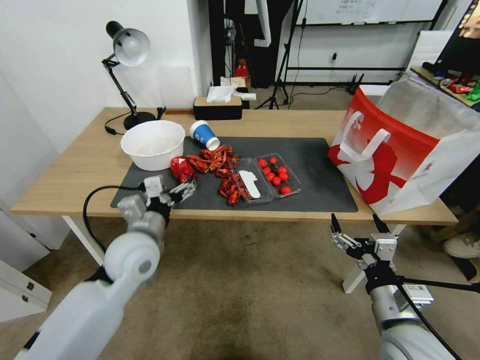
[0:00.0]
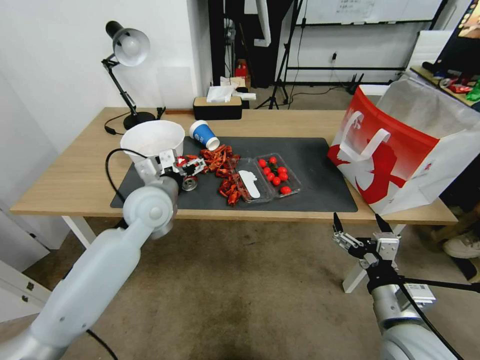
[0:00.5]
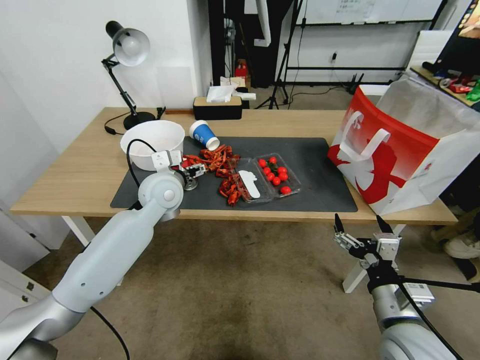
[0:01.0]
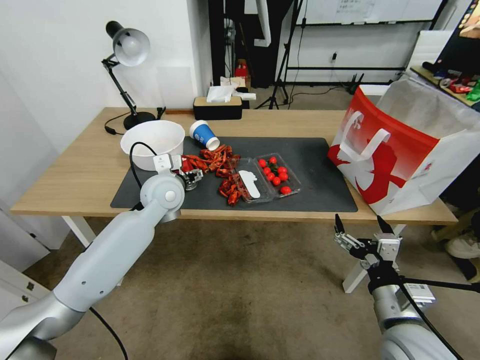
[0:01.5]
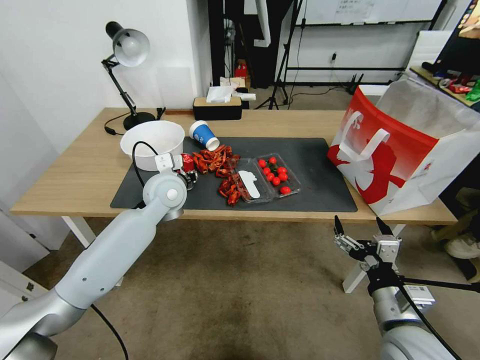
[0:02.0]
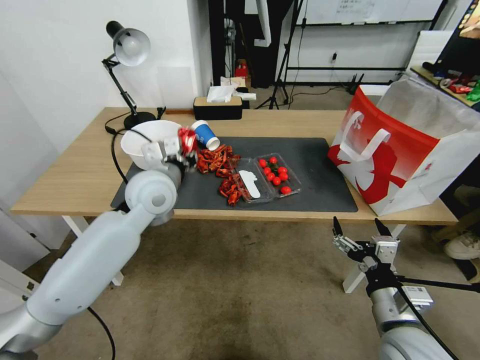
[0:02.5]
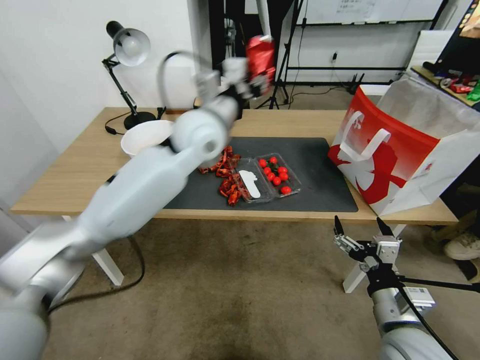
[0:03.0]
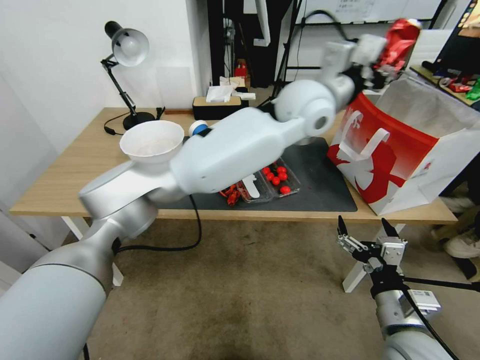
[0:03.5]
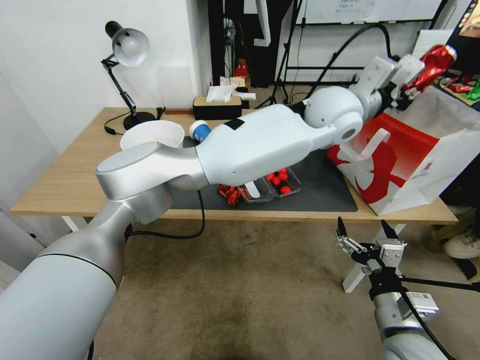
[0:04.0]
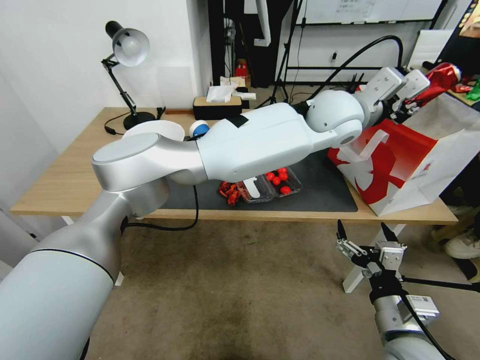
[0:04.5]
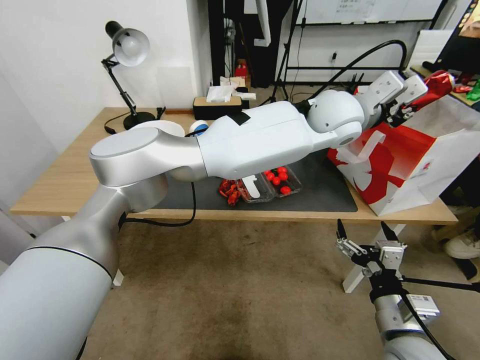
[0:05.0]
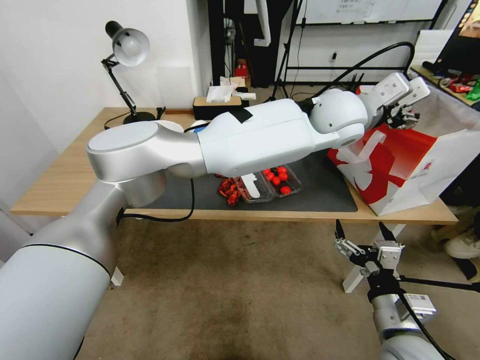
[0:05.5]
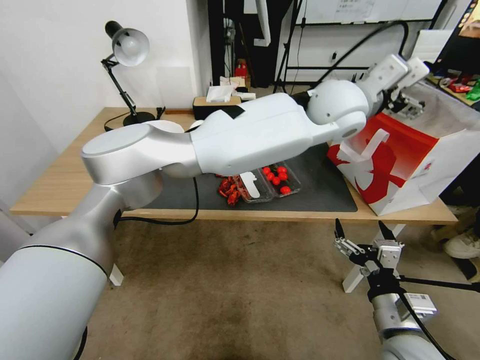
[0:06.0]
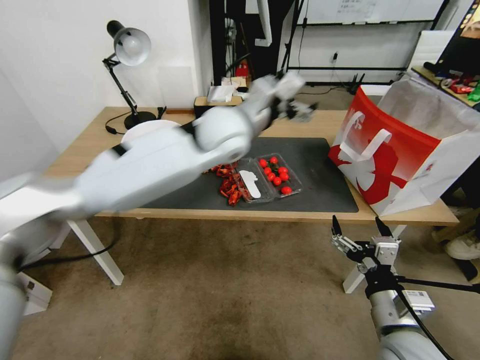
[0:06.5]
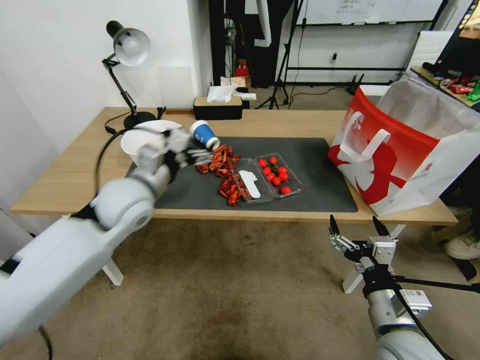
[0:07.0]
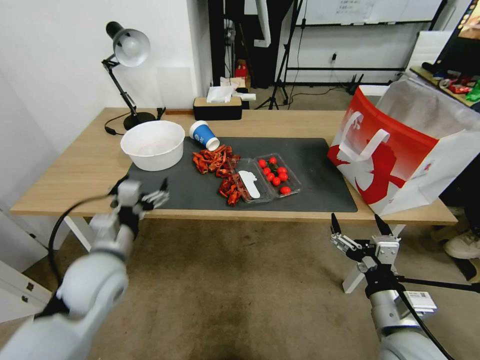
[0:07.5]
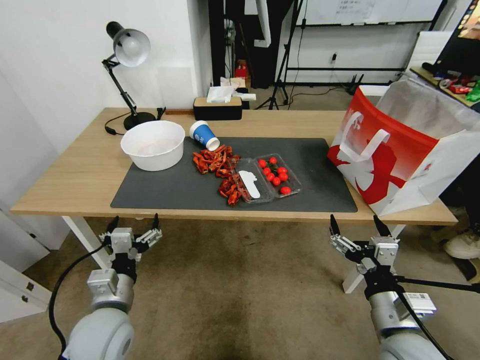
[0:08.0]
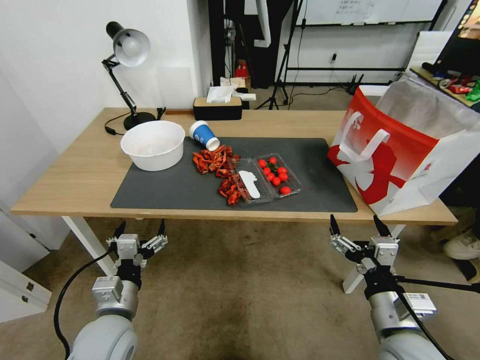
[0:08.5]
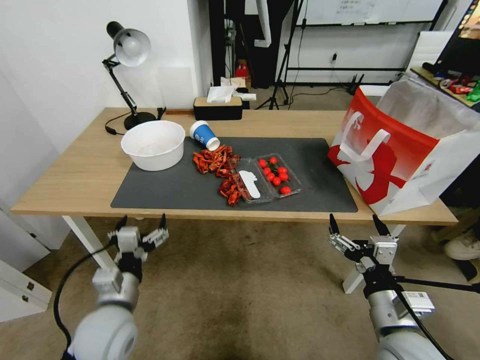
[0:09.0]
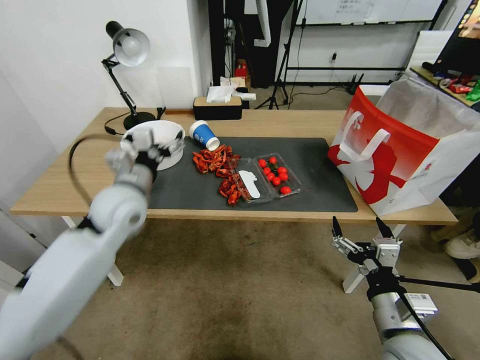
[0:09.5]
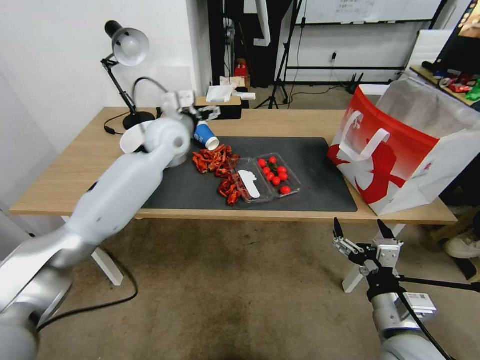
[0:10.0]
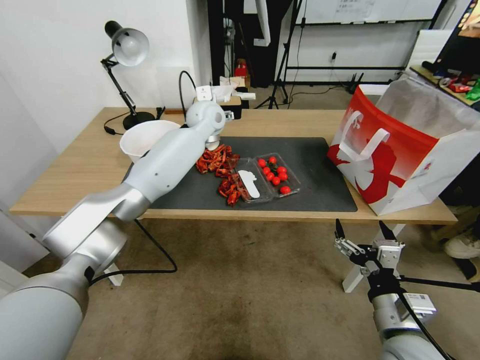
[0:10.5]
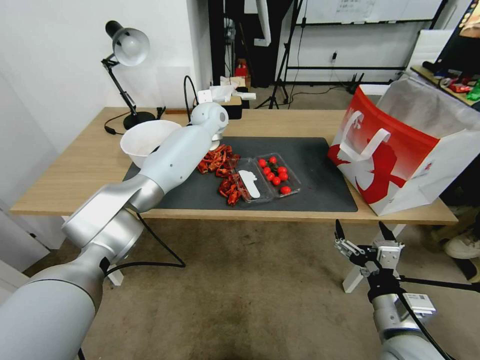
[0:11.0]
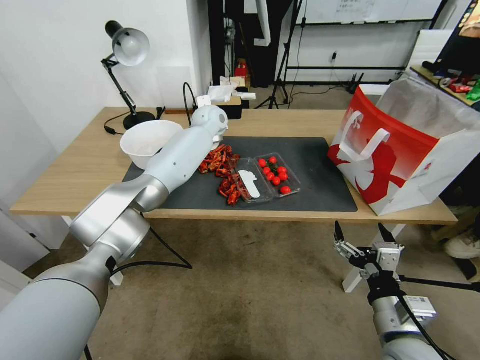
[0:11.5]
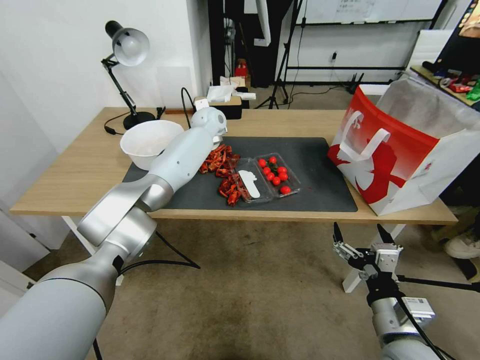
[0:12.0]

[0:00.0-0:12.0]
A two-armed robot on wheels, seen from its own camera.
0:00.0 to 0:02.0: The left gripper shifts approximately 15 cm forward, and closes up.
0:02.0 to 0:04.0: The left gripper is displaced to the right and upward by about 40 cm.
0:04.0 to 0:06.0: The left gripper opens its fingers.
0:06.0 to 0:08.0: The left gripper moves to the left, downward and backward, approximately 60 cm.
0:08.0 to 0:10.0: The left gripper shifts approximately 40 cm forward and upward.
0:10.0 to 0:12.0: The left gripper travels forward and to the right by about 15 cm.

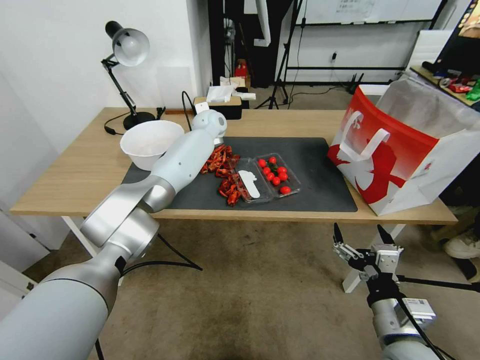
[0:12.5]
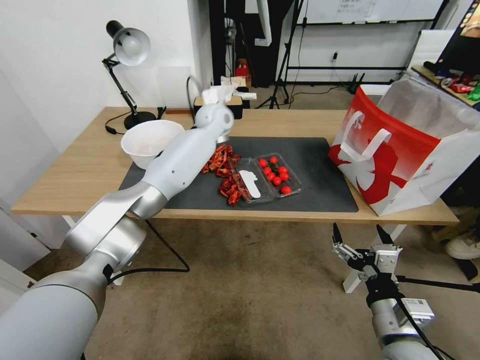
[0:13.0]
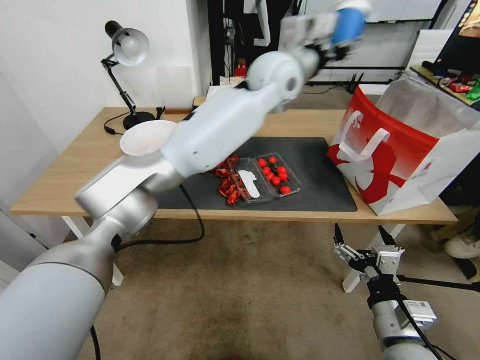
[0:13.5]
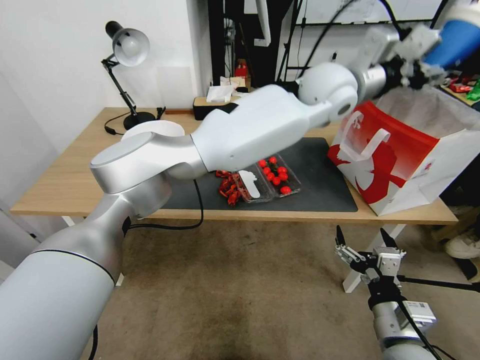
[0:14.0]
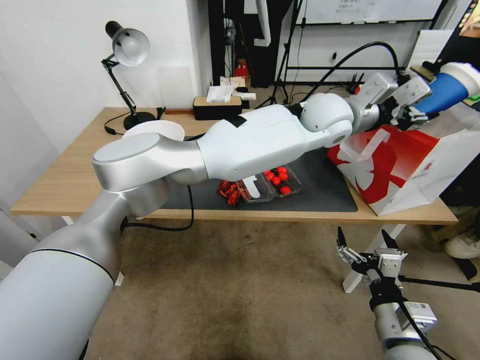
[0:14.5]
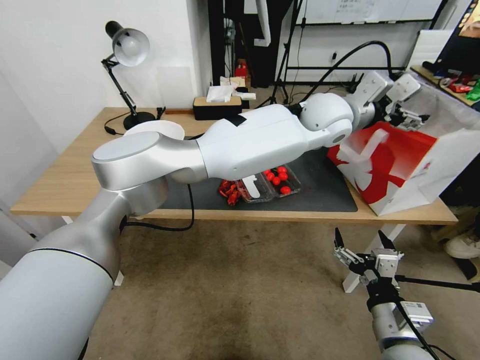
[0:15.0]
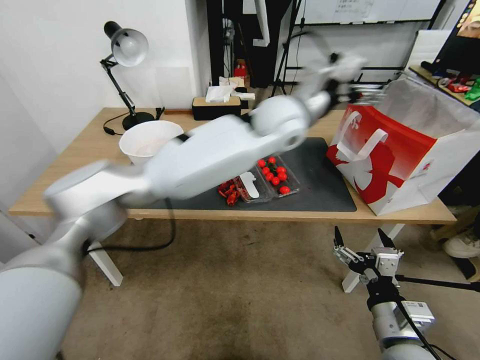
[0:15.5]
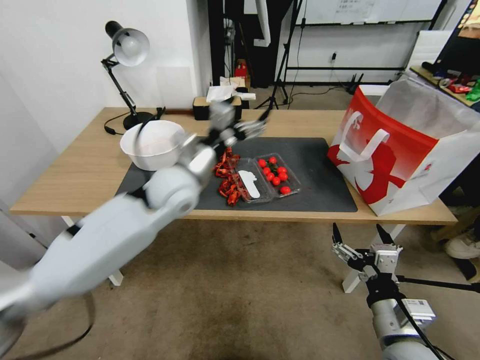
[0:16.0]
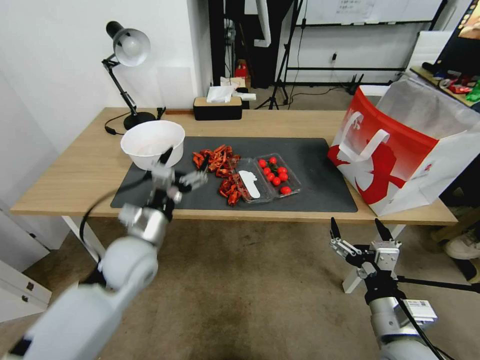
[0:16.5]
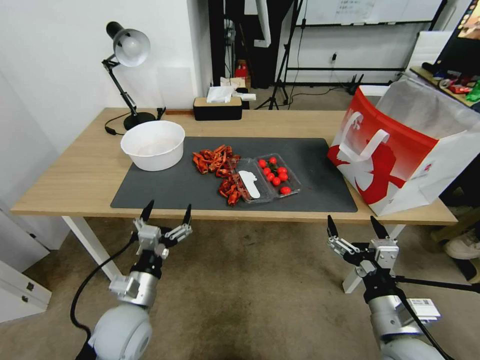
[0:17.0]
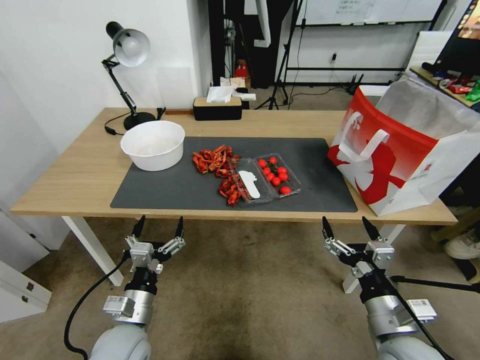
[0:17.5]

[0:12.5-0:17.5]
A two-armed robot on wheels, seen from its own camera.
0:12.5 to 0:15.0: The left gripper shifts approximately 35 cm to the right, backward and upward, and opens up.
0:15.0 to 0:17.5: The left gripper is displaced to the left, downward and backward by some 60 cm.

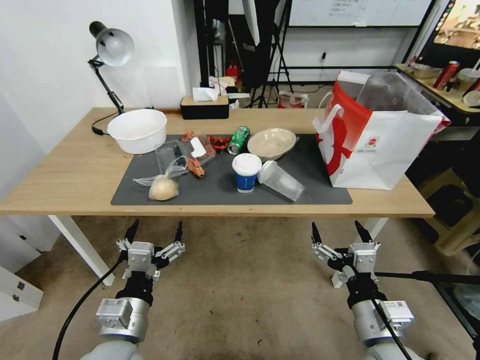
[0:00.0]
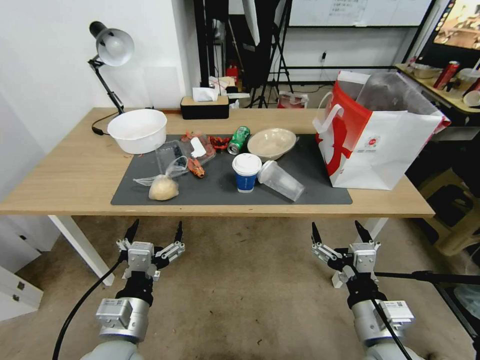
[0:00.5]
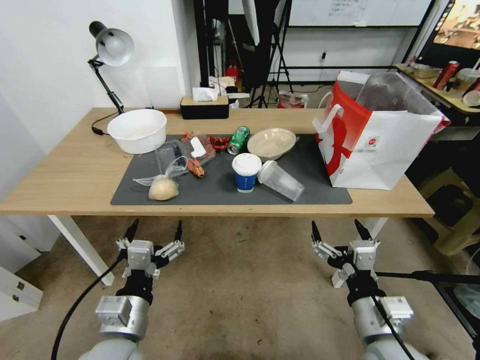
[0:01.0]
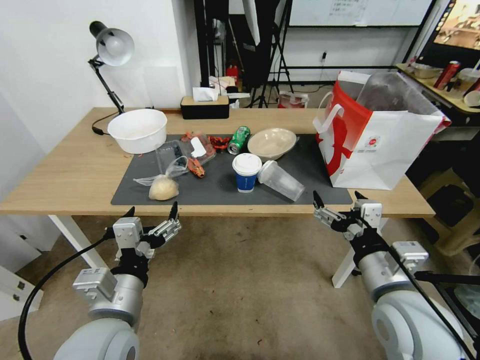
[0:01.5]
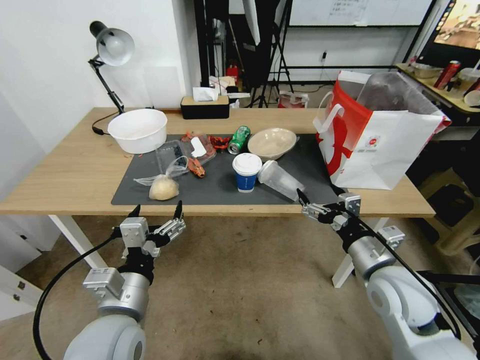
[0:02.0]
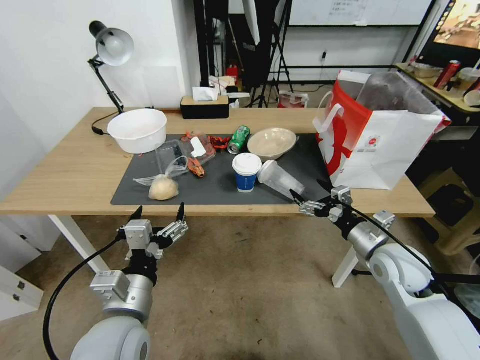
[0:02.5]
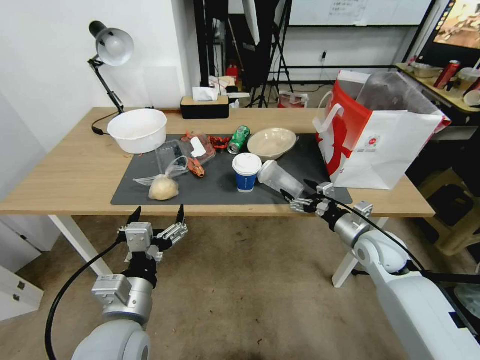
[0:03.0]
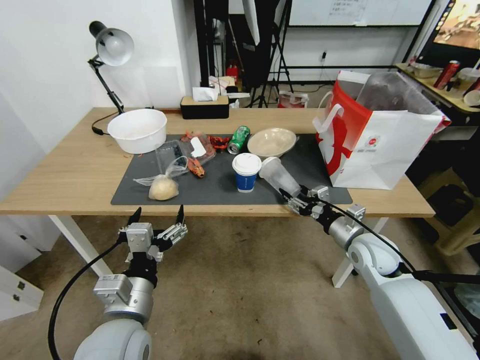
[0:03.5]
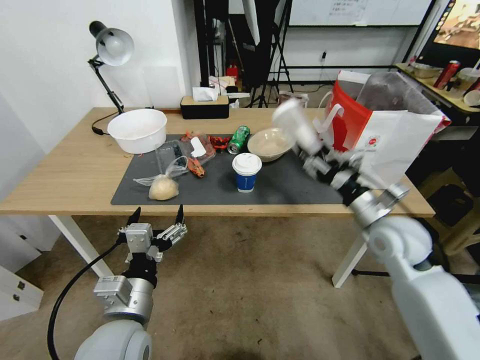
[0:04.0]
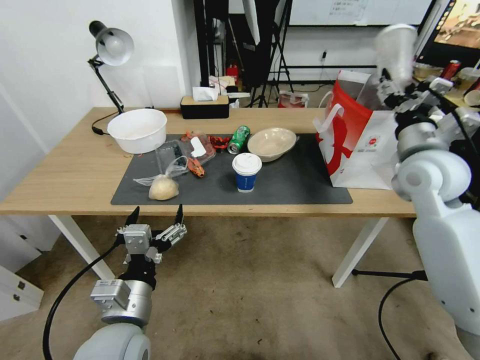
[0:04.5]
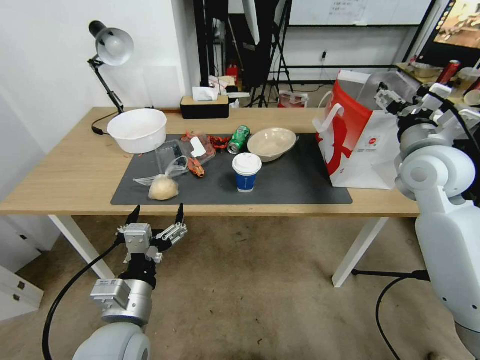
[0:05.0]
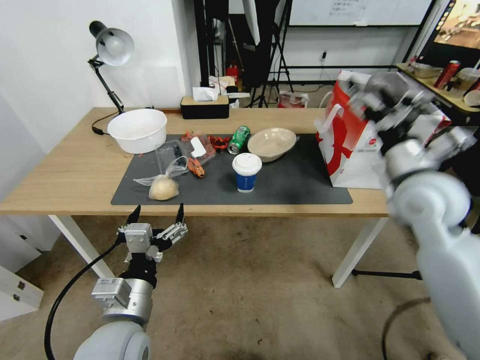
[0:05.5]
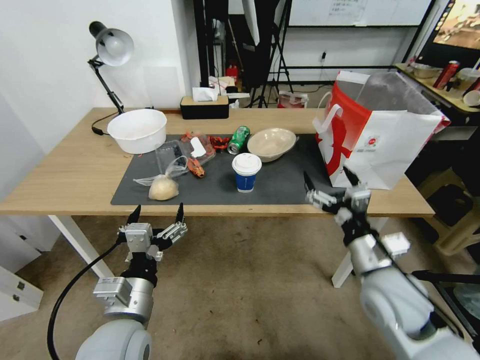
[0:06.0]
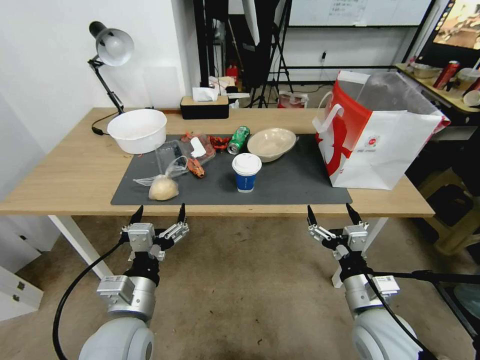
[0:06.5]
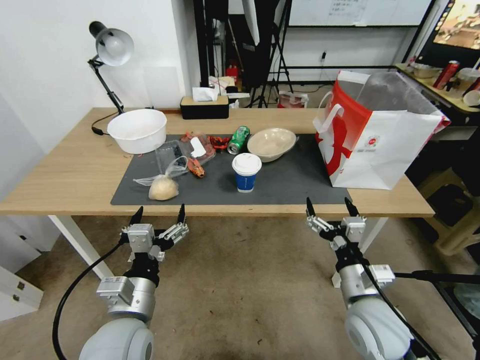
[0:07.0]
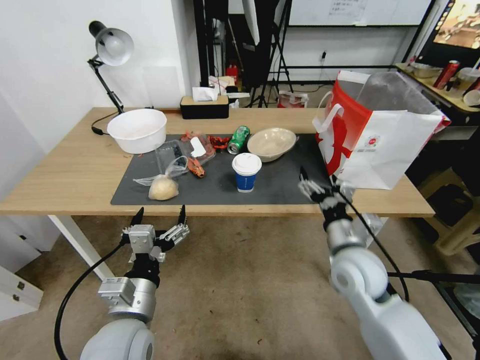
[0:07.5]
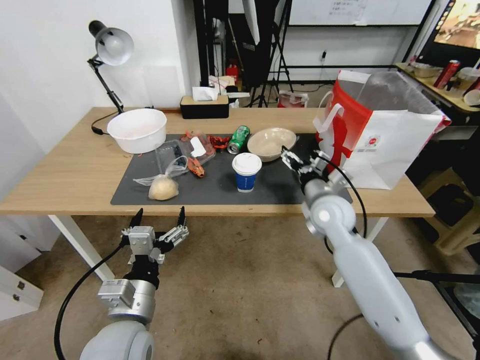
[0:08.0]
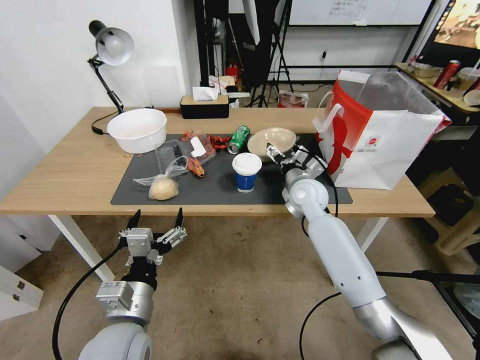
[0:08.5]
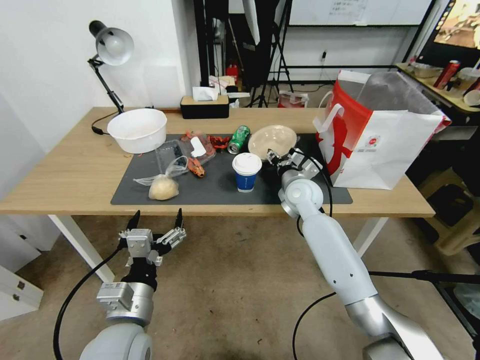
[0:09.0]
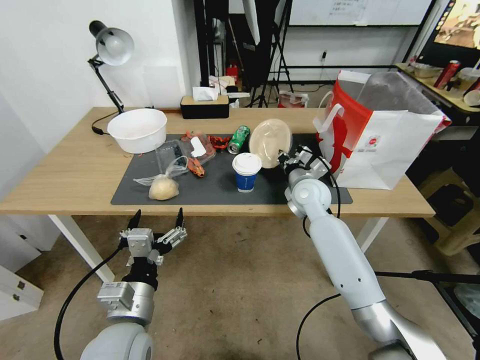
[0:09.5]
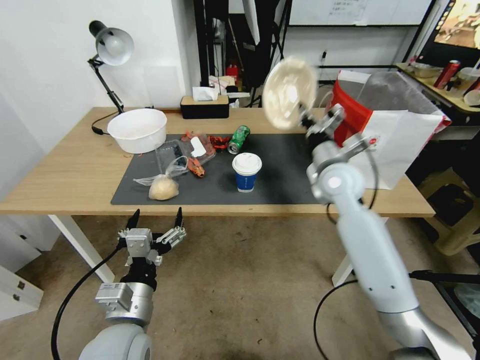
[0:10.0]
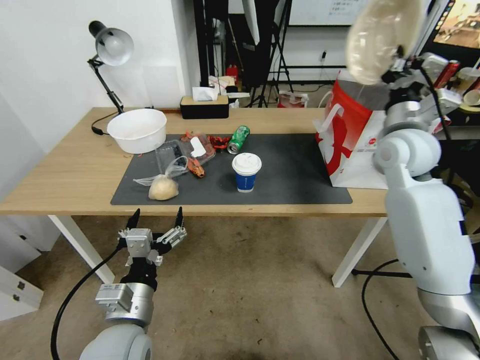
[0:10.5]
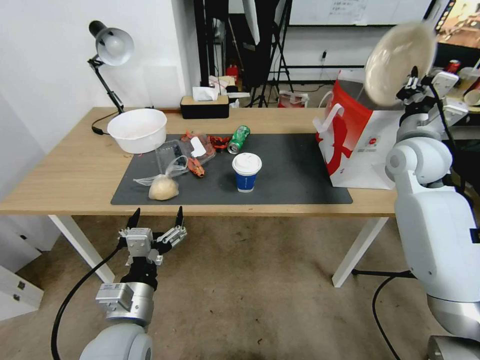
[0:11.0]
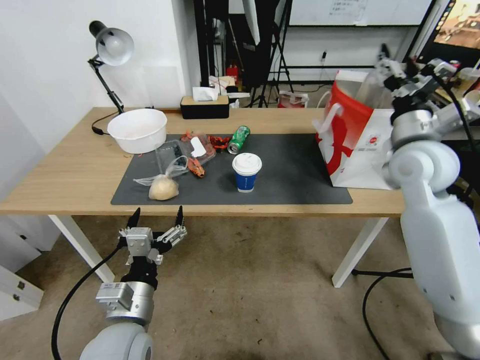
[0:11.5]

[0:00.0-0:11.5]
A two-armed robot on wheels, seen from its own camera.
0:02.0 to 0:04.0: The right gripper goes roughly 10 cm forward, and closes.
0:04.0 to 0:06.0: The right gripper travels backward by about 10 cm, reaches roughly 15 cm upward, then returns, and opens.
0:06.0 to 0:07.5: The right gripper is displaced forward by some 5 cm.
0:07.5 to 0:09.5: The right gripper moves forward, roughly 20 cm, and closes up.
0:09.5 to 0:11.5: The right gripper travels upward, to the right and backward by some 25 cm, and opens its fingers.
